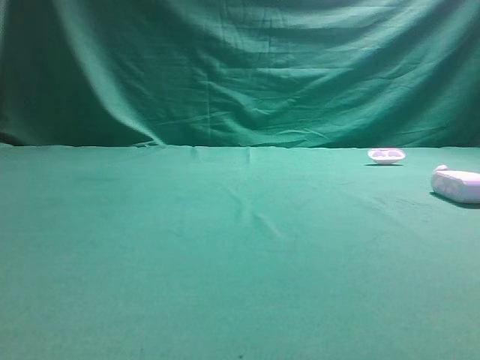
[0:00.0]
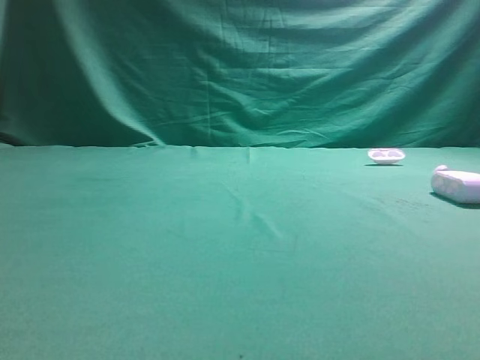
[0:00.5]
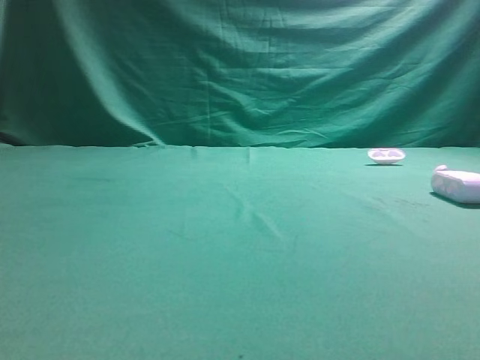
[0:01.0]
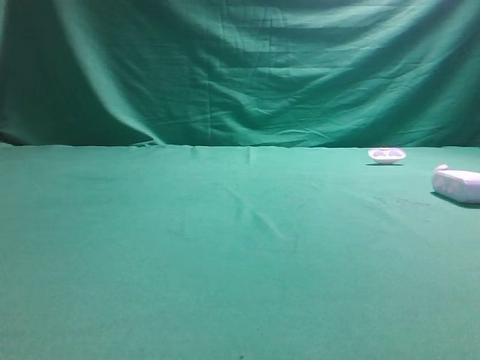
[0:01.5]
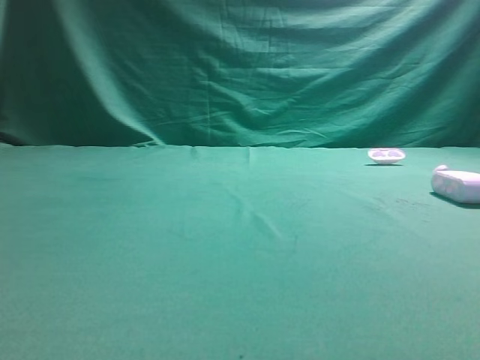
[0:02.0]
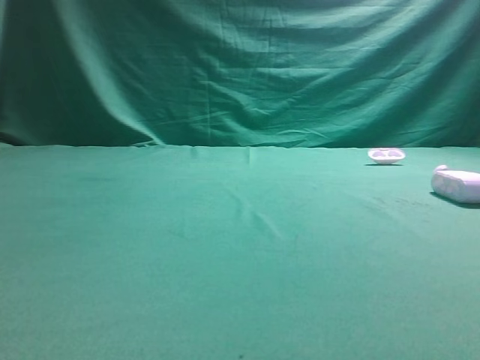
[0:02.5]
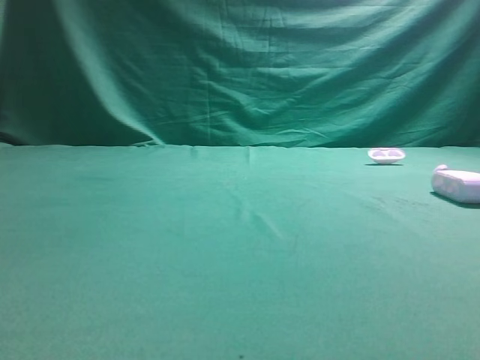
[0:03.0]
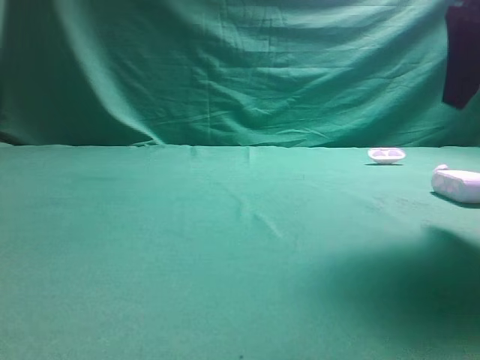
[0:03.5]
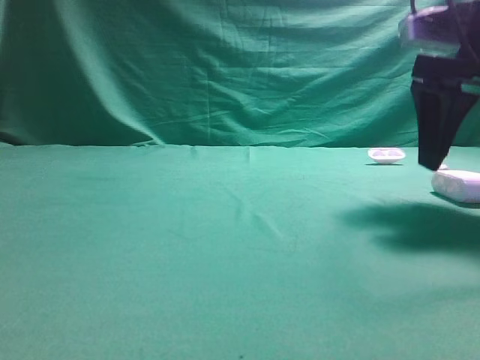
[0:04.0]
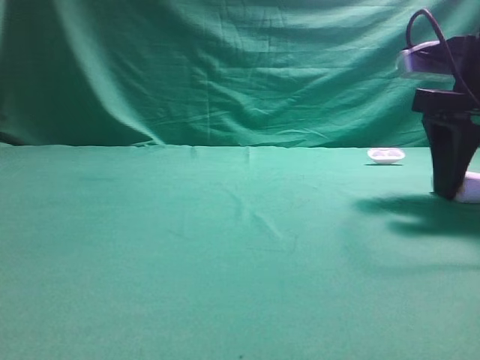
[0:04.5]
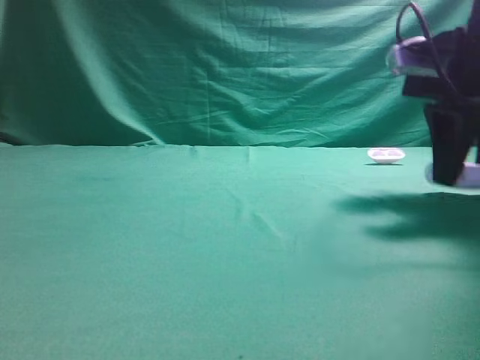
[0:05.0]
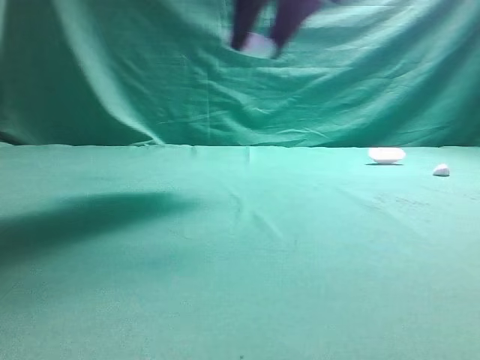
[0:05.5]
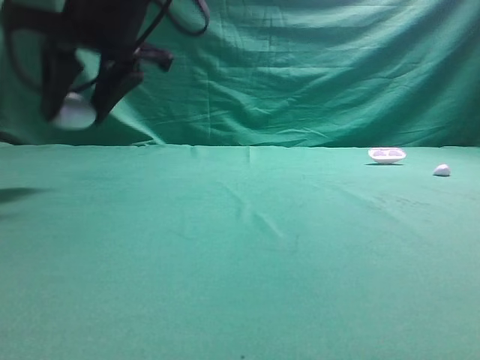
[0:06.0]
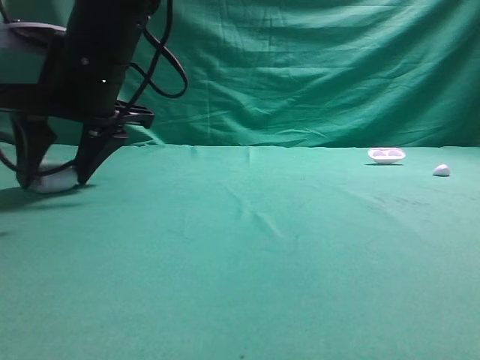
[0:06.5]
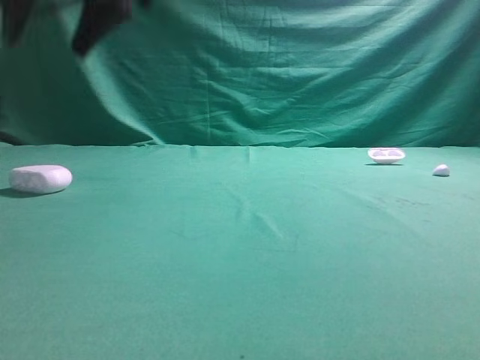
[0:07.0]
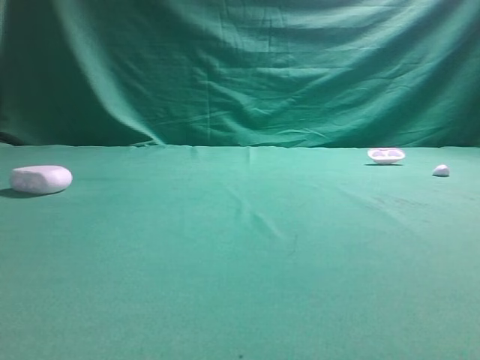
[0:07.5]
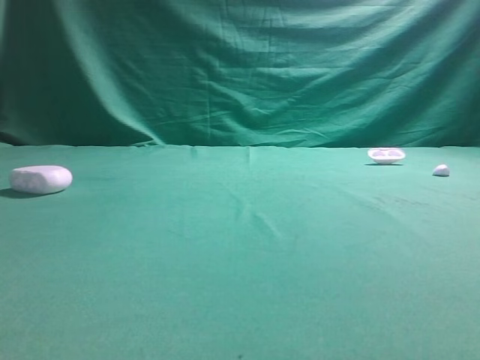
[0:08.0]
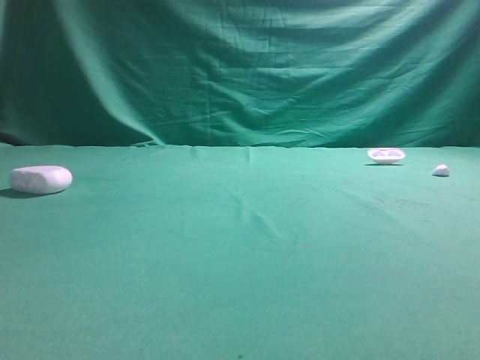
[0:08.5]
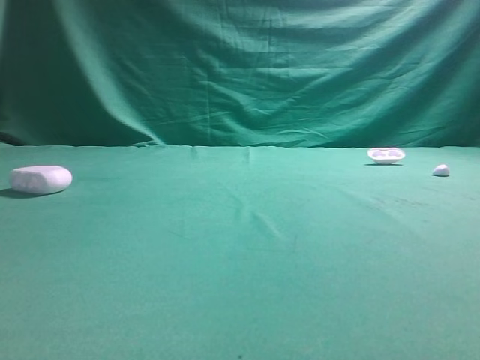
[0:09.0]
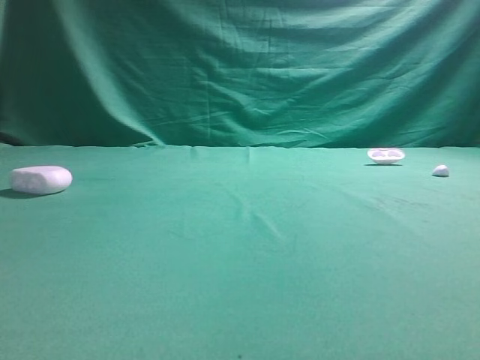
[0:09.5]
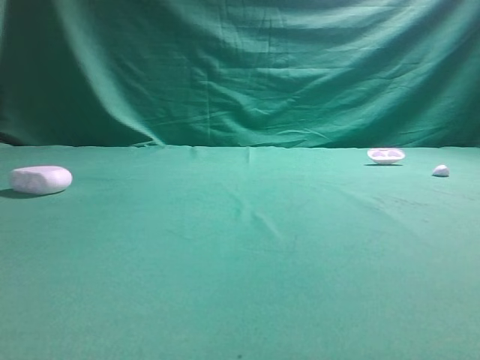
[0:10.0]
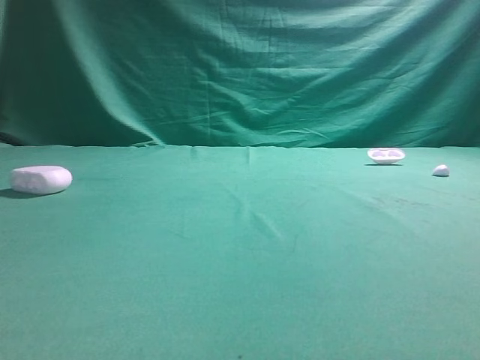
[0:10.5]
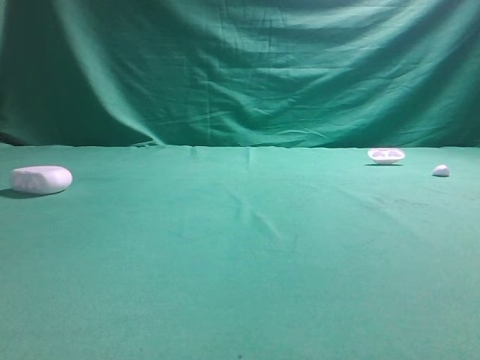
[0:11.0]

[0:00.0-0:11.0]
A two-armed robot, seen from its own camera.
Step, 0:00.0 to 0:04.0: Grasp the Bluetooth earphone case.
Step, 0:04.5 to 0:06.5: Place bluetooth earphone case on the left side of the table.
